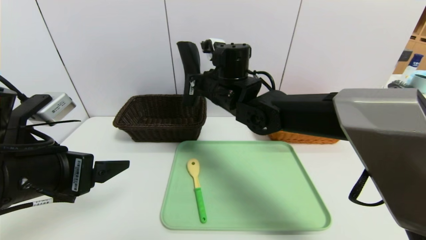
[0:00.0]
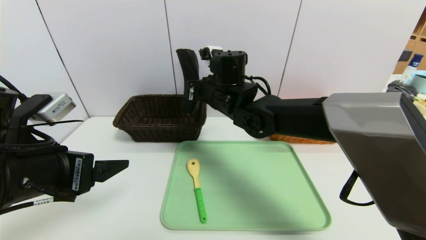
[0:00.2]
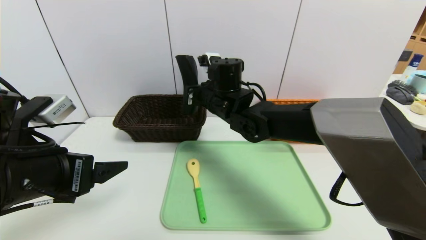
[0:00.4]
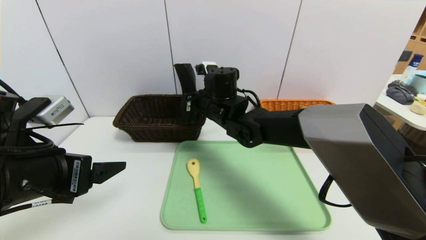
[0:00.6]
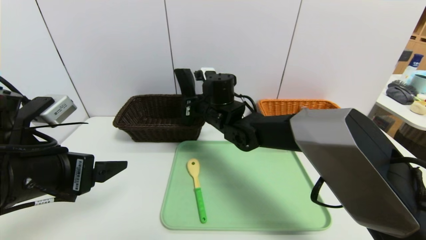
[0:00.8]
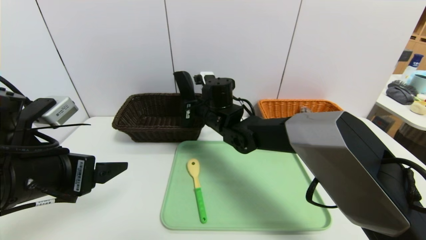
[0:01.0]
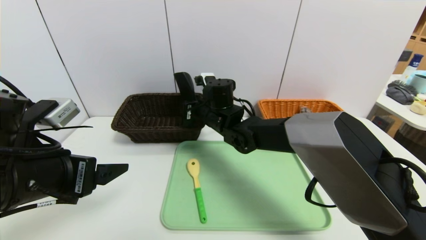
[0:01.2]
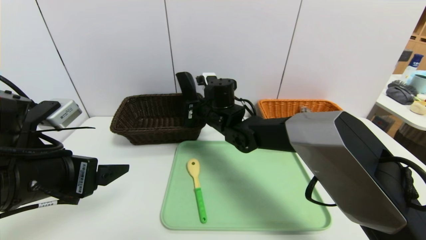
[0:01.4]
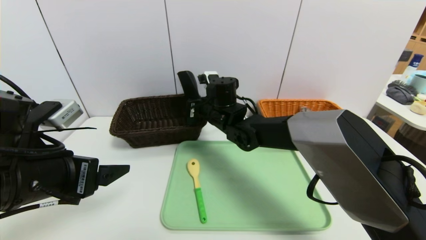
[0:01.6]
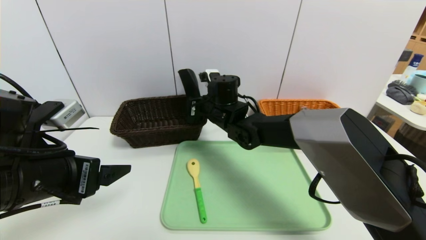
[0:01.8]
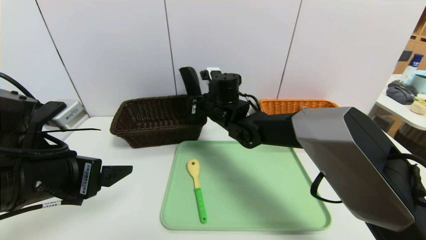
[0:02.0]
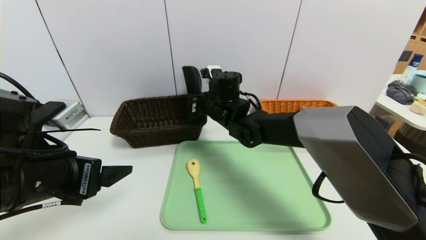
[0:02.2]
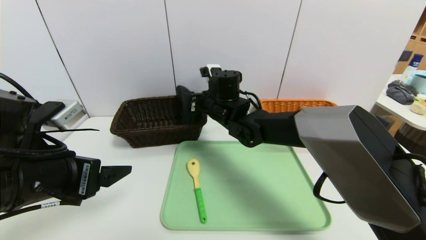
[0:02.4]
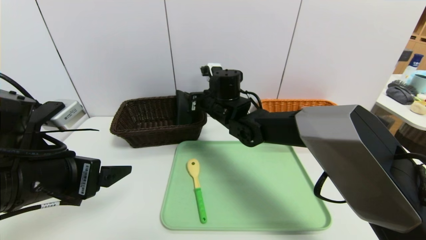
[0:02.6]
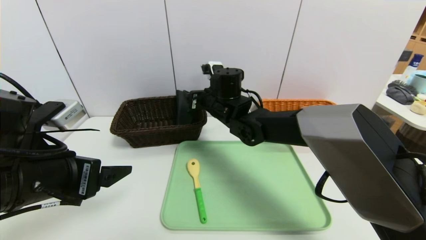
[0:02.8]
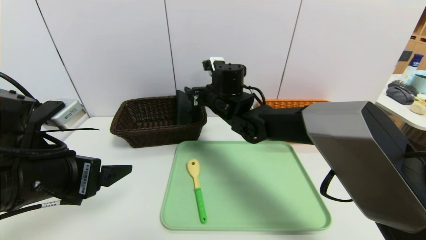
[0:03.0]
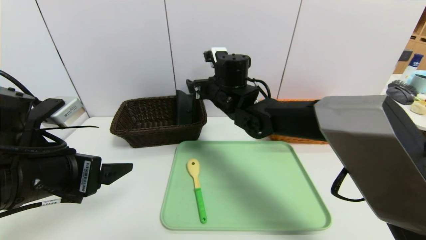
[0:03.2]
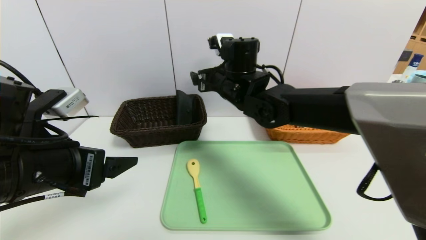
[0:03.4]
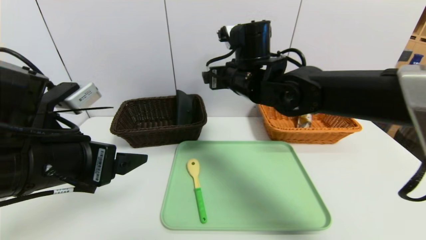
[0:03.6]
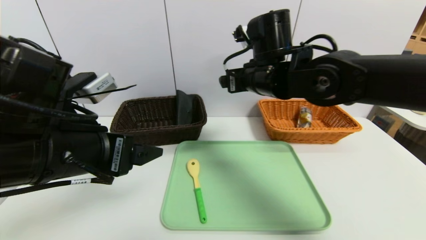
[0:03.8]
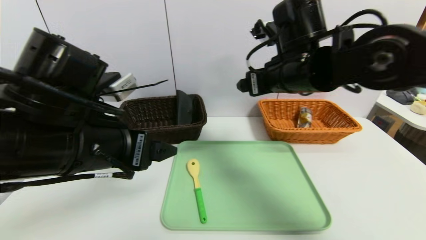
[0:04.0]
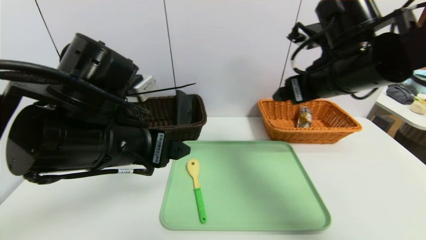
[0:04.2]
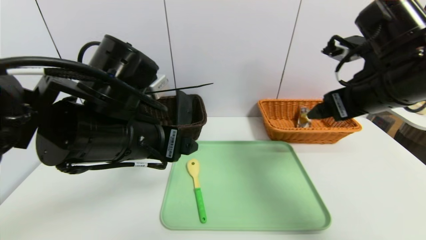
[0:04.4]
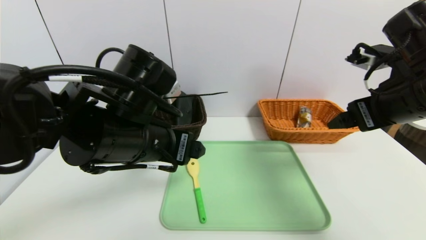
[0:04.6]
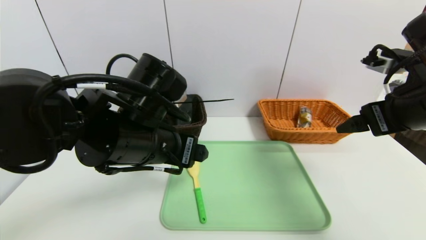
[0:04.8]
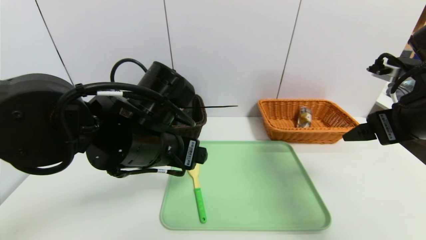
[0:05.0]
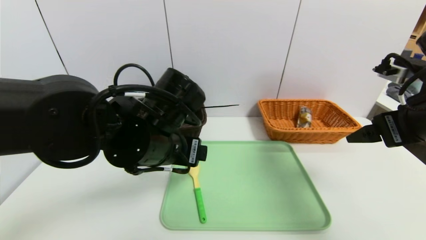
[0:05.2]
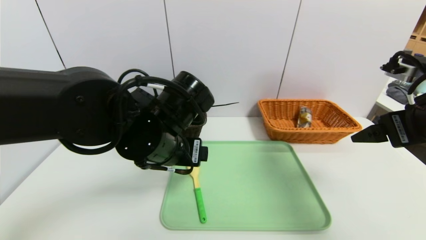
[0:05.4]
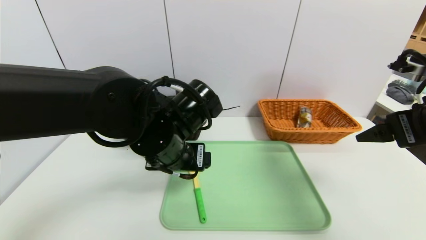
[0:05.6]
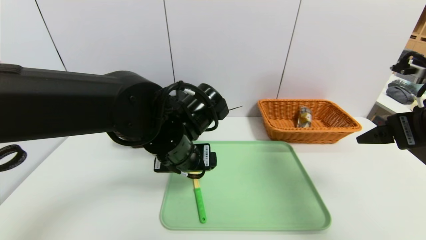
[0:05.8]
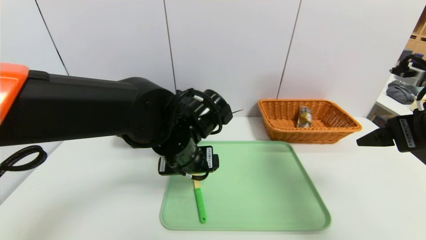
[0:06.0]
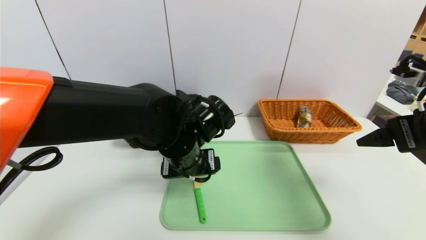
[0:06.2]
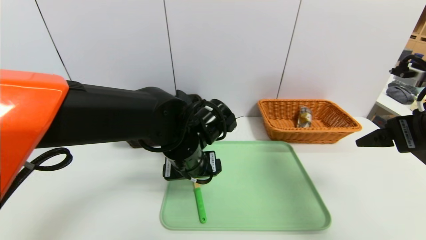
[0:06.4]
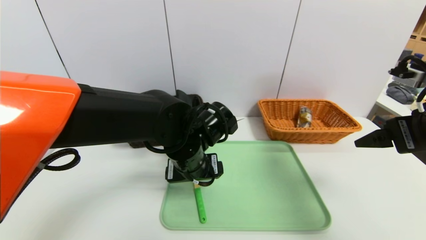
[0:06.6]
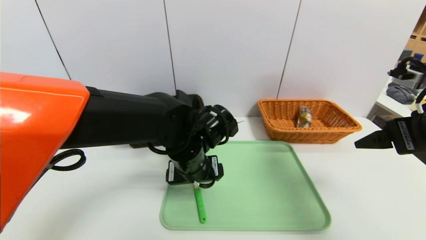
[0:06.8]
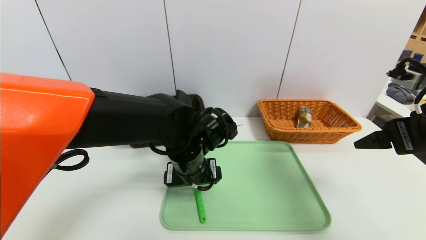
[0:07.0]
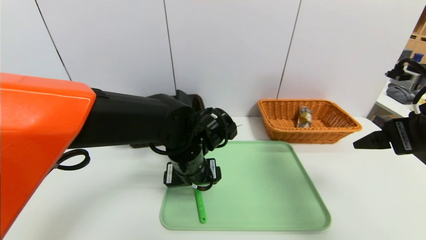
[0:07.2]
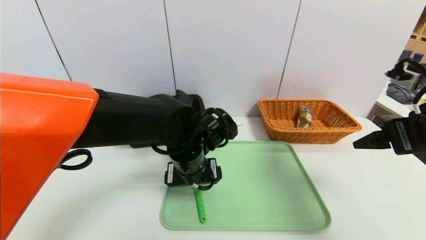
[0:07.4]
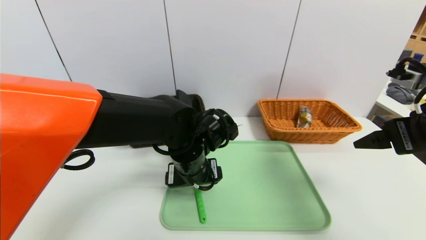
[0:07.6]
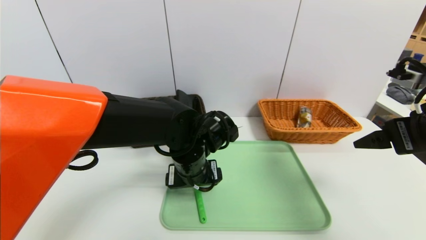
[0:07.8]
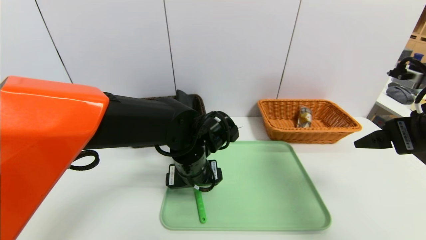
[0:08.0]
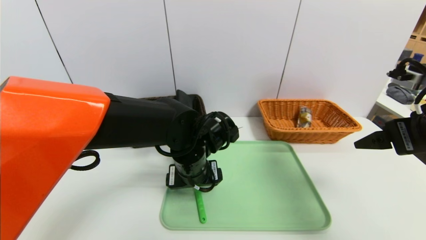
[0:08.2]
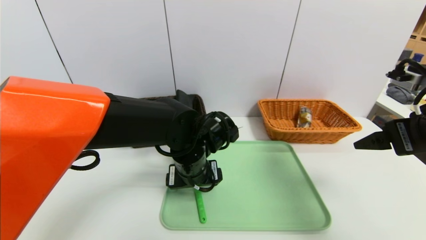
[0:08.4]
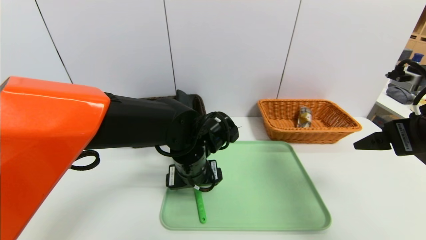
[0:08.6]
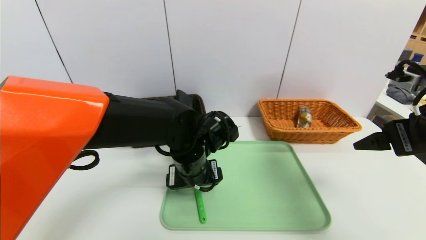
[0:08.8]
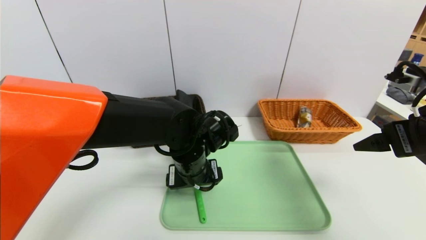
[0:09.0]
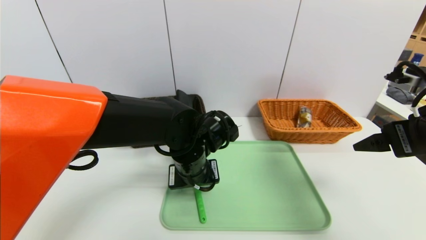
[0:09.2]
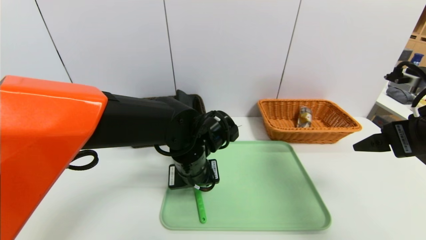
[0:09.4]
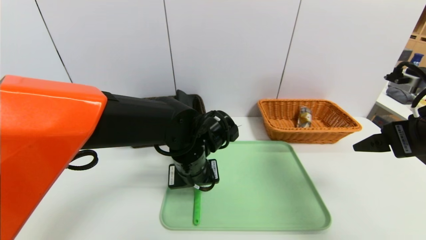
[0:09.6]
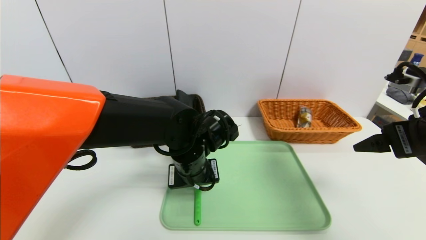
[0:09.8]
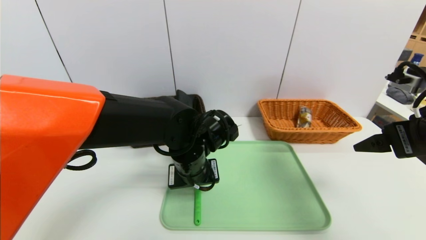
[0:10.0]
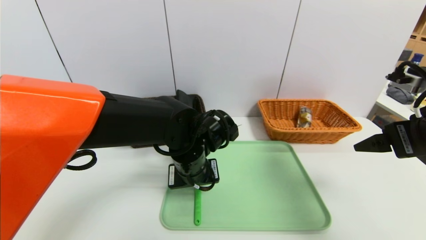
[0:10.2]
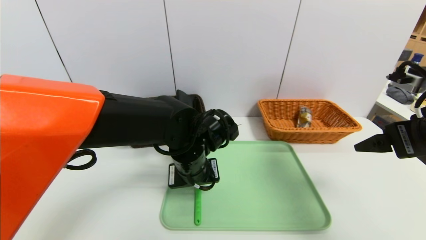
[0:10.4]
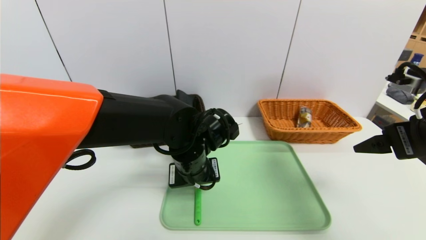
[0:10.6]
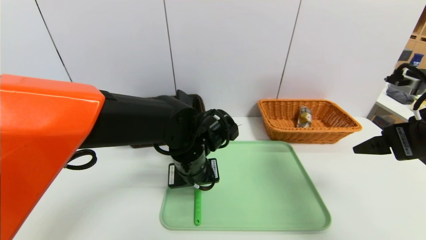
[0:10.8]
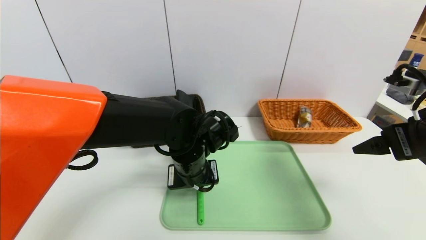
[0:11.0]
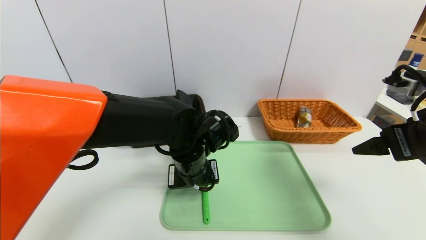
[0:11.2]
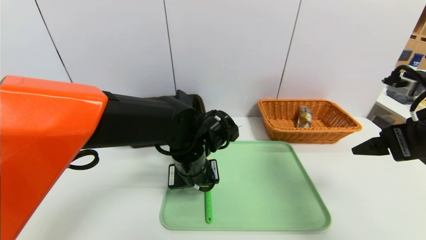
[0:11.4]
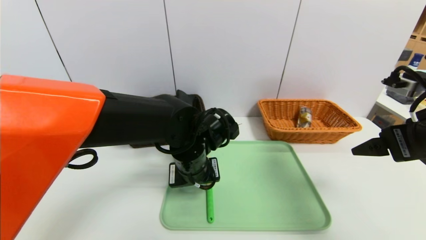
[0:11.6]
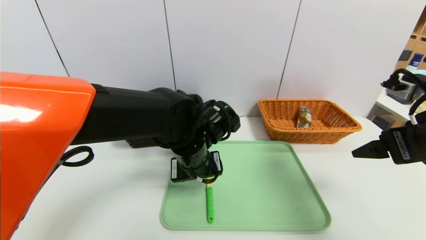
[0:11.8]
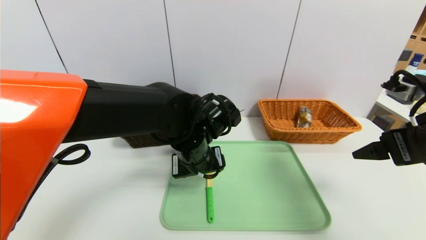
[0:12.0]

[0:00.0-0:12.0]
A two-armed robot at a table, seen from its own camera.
Task of the whole recording: place the food in the right basket with the right gripper, and place the non food items in the left basket with the left gripper.
Step, 0:00.0 to 0:03.0: Grasp the glasses case and put it in the right basket.
0:00.0 to 0:01.6: The right gripper shifts about 10 cm downward.
0:01.6 to 0:03.0: The right gripper opens its fingers.
0:03.0 to 0:04.4: The left gripper heads to the right, covering approximately 10 cm. Meanwhile the right gripper goes roughly 30 cm to the right, backward and upward.
0:04.4 to 0:06.0: The left gripper goes some 10 cm to the right, downward and forward; the right gripper heads to the right and backward, covering roughly 10 cm.
0:06.0 to 0:07.6: The grippers make only small movements.
0:07.6 to 0:09.0: Both grippers stay put.
0:09.0 to 0:10.4: The left gripper closes its fingers.
0:10.4 to 0:12.0: The left gripper opens up.

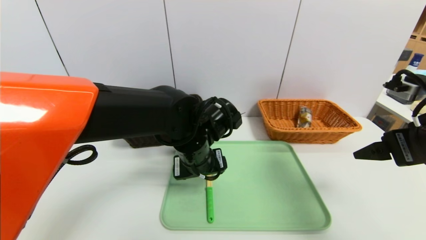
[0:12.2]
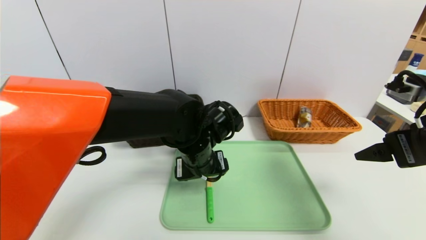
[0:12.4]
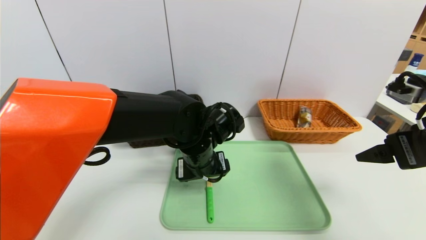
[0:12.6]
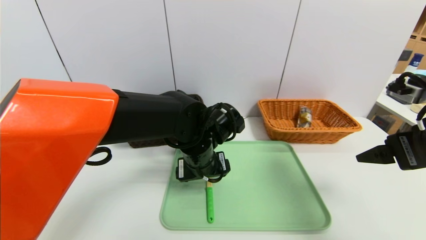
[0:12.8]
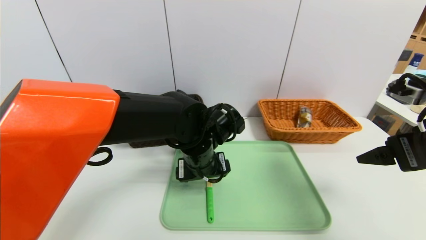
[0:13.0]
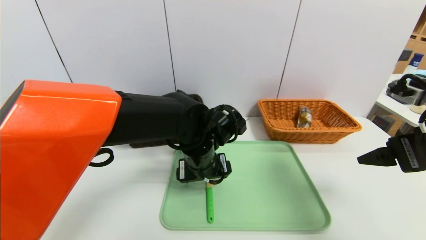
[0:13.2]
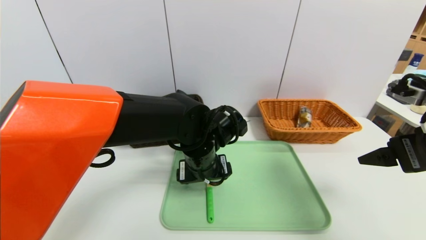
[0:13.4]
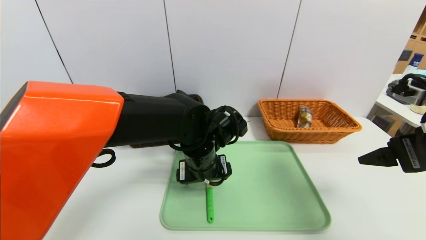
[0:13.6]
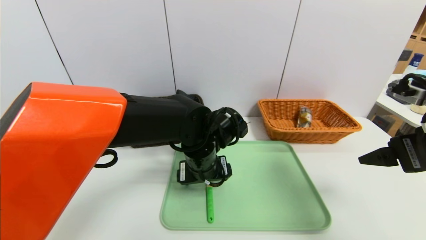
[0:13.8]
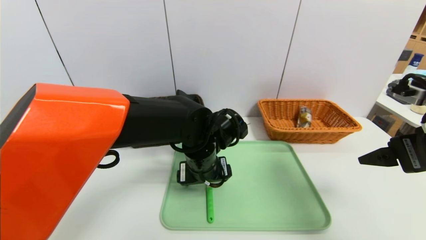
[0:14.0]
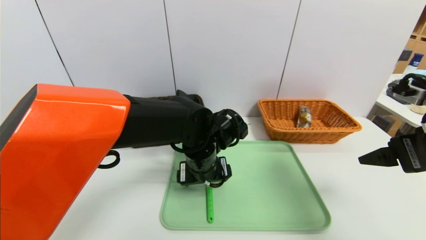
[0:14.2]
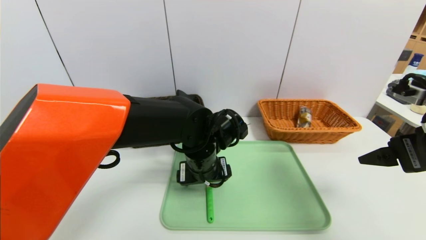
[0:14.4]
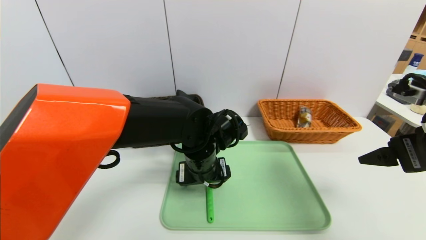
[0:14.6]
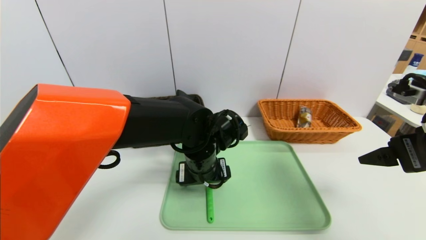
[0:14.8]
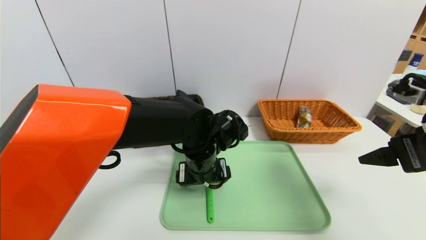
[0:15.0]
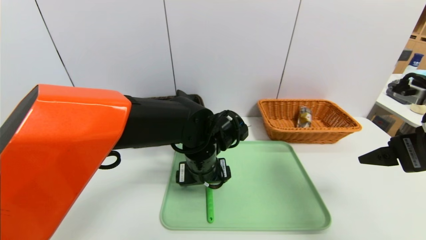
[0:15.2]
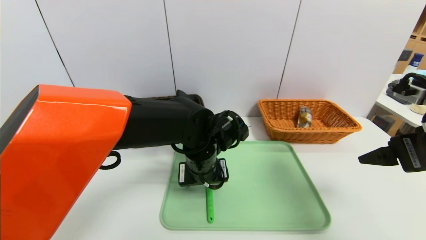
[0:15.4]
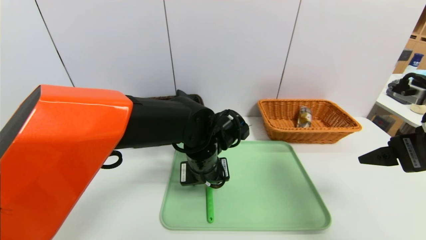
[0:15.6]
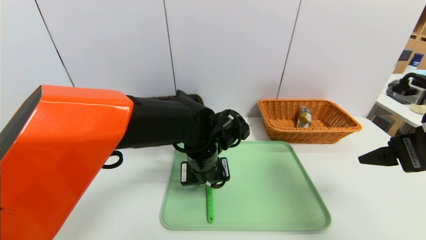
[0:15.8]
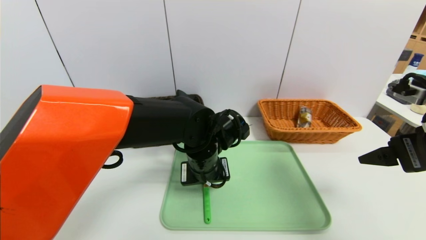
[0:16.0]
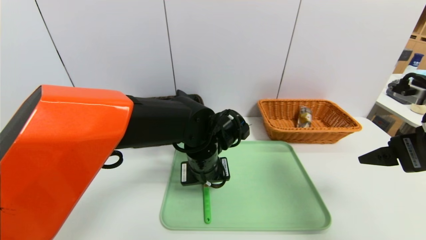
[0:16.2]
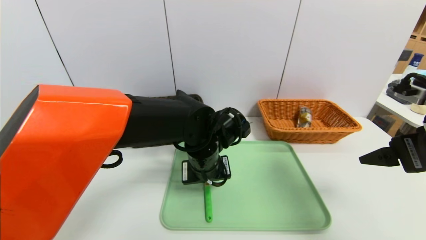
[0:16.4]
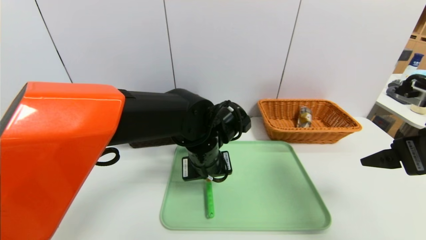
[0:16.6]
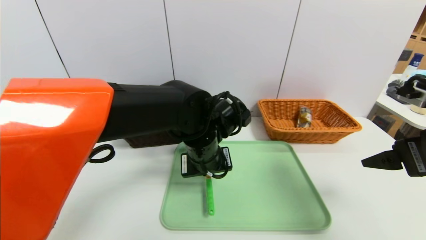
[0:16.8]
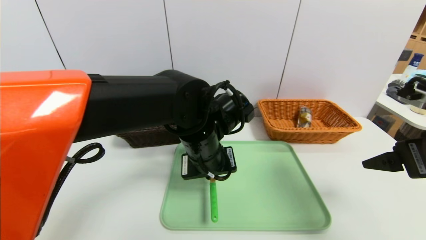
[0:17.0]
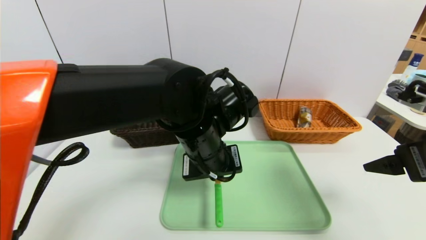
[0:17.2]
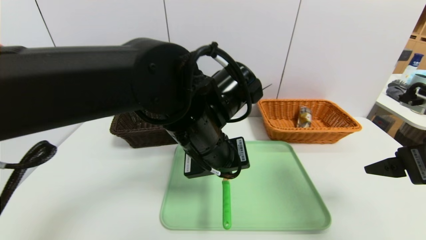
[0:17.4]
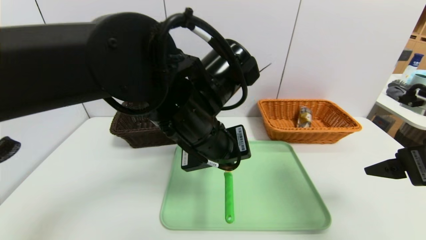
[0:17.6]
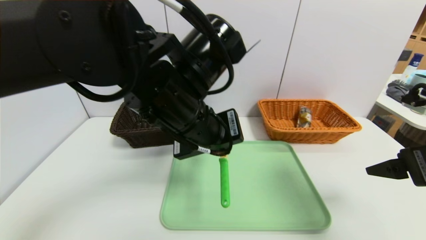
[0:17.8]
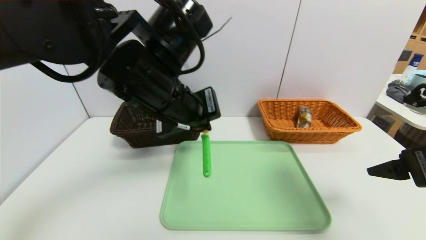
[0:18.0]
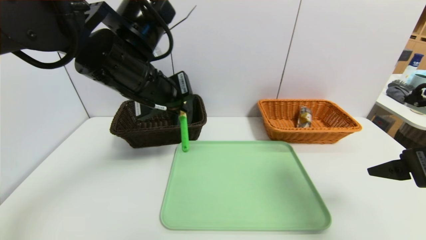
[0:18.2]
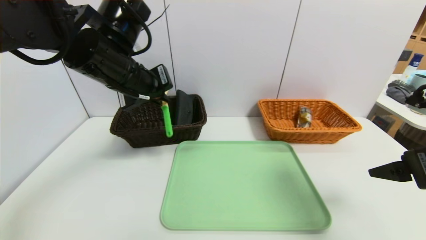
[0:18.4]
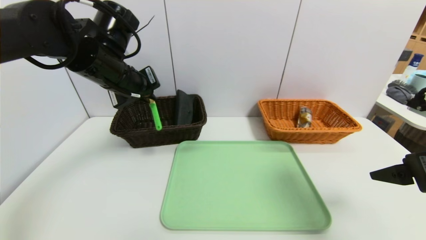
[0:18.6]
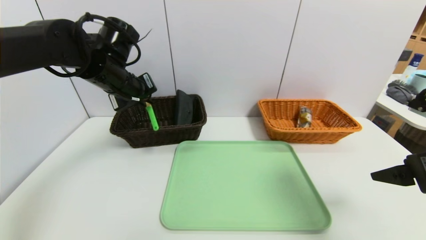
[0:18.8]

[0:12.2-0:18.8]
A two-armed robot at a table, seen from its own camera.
Task of the whole recording: place the food in the right basket with the right gripper, and place the non food items in the left basket with the left gripper.
0:12.2 to 0:13.8: There are only small adjustments of the grippers.
0:13.8 to 0:15.4: The two grippers keep their place.
0:15.4 to 0:17.2: The left gripper moves upward, about 5 cm, and closes up.
0:17.2 to 0:18.8: The left gripper travels to the left and forward by some 20 cm.
